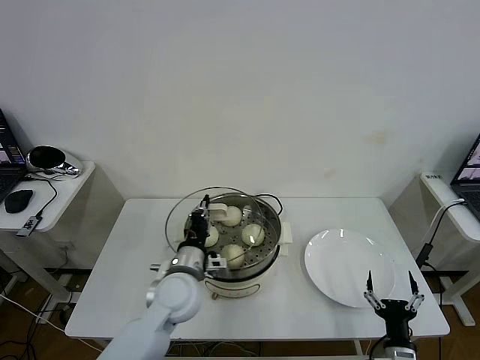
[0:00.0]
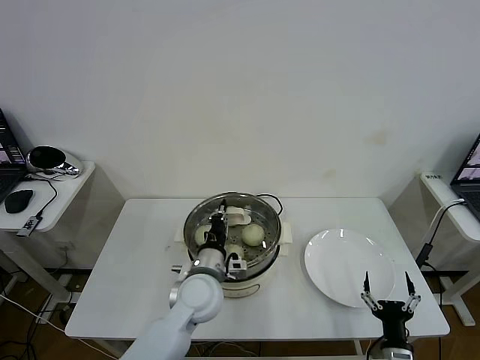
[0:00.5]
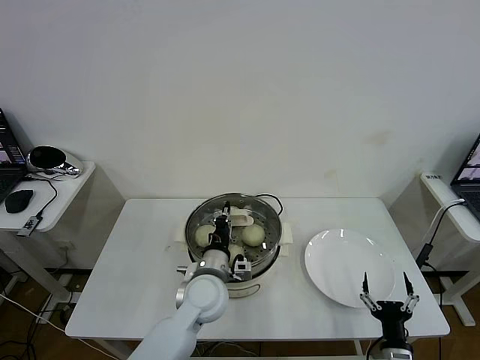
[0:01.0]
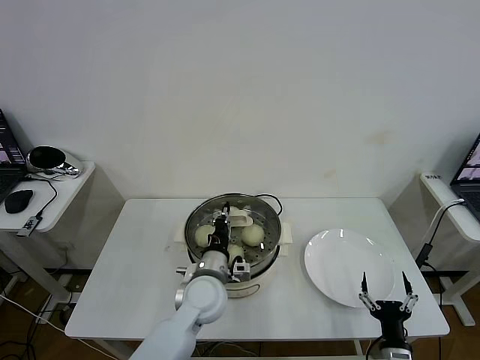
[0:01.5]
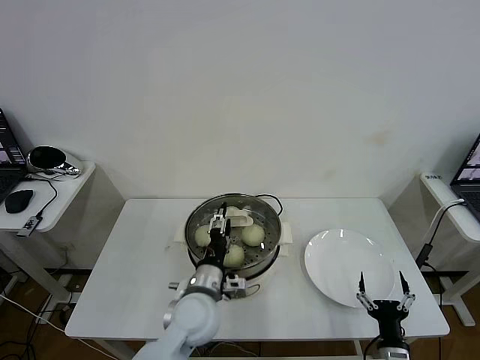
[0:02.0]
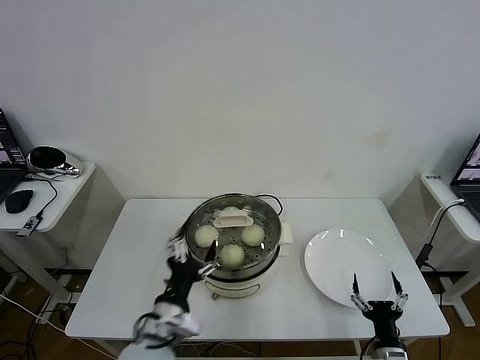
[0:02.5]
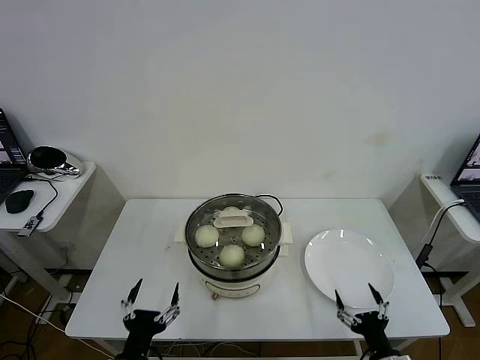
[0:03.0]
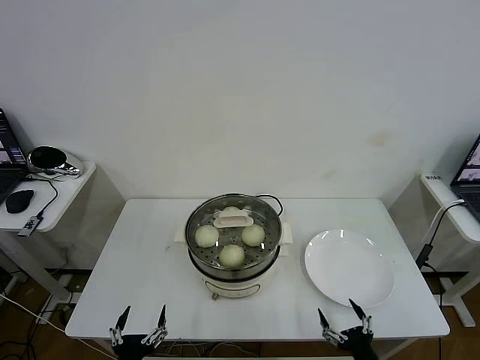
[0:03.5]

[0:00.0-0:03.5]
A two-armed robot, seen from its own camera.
Task of the whole recording: take steamed baozi put them in steamer then cover it.
Step, 0:00.0 to 0:02.0: Place the pot lid on the steamer with left gripper.
0:00.0 to 0:02.0: The left gripper shifts by roughly 5 cm, and opens its fingers.
0:02.0 to 0:03.5: The left gripper moves backward and to the left, roughly 25 cm.

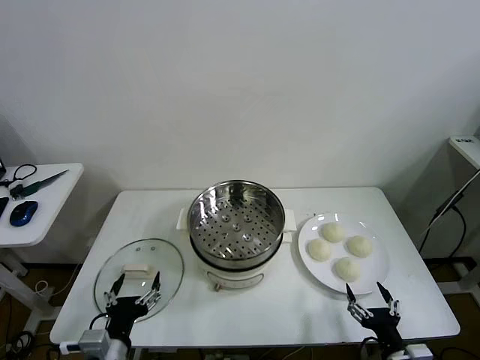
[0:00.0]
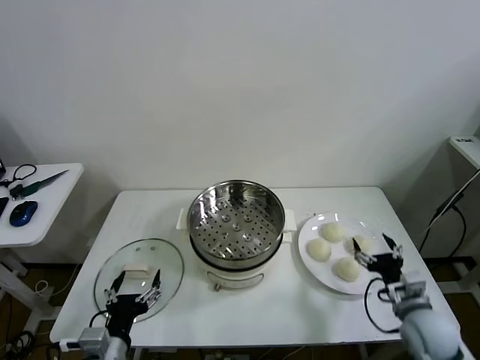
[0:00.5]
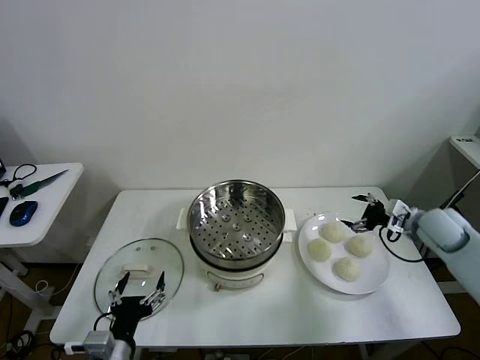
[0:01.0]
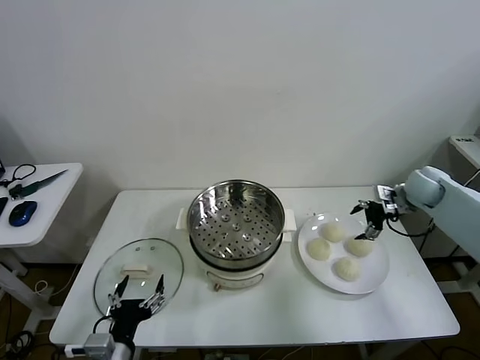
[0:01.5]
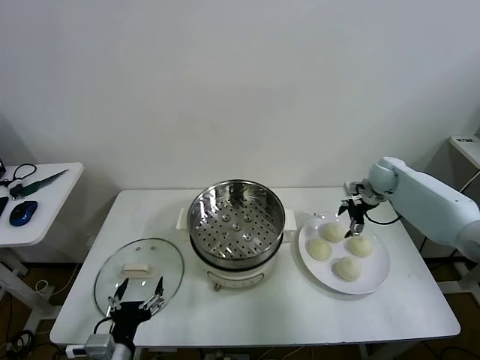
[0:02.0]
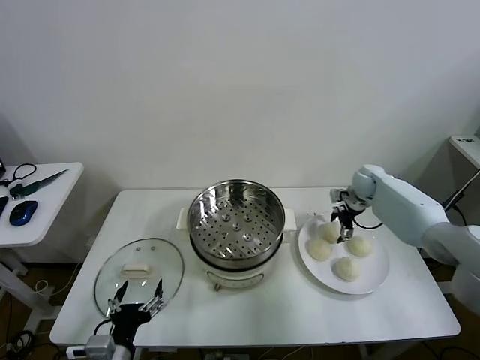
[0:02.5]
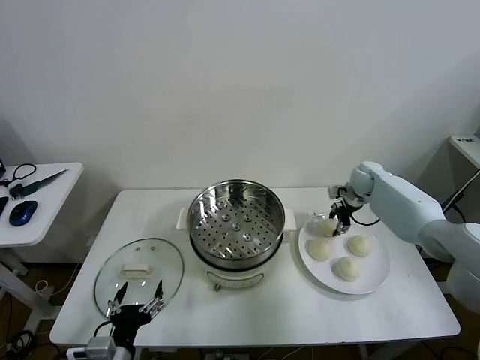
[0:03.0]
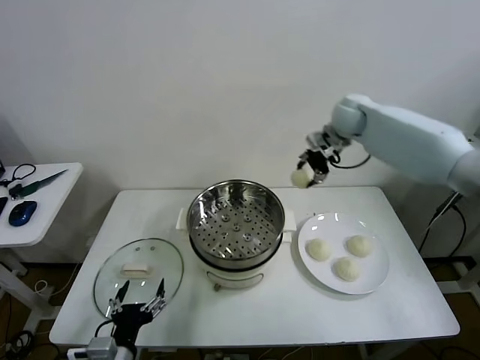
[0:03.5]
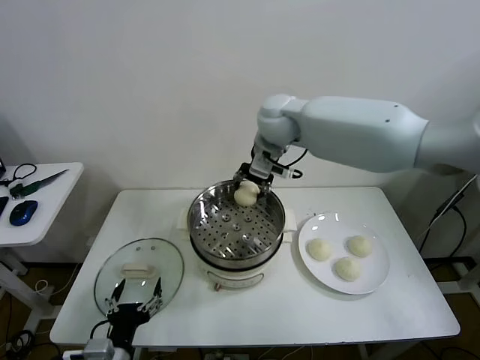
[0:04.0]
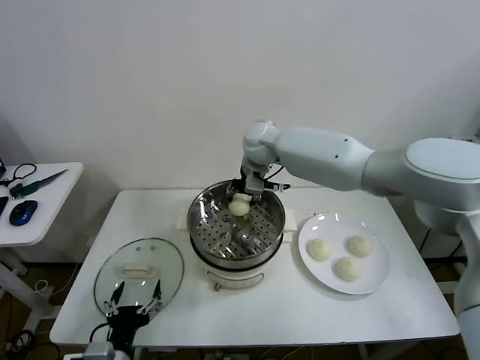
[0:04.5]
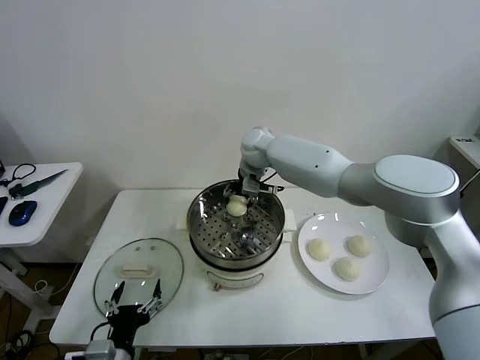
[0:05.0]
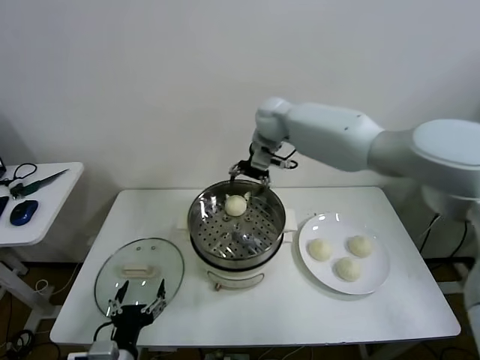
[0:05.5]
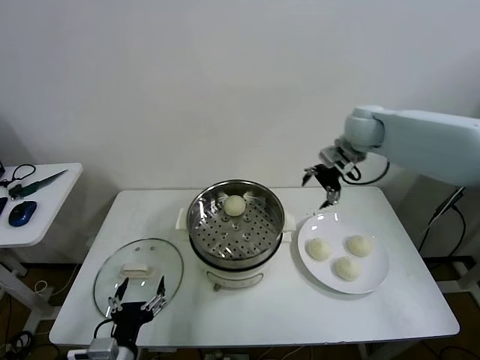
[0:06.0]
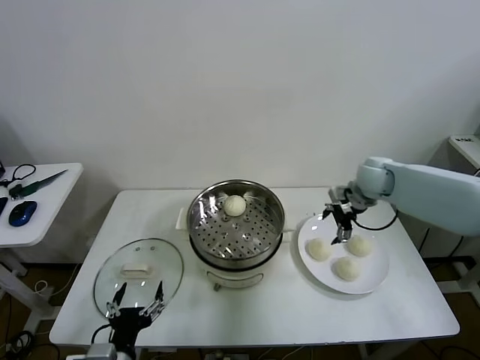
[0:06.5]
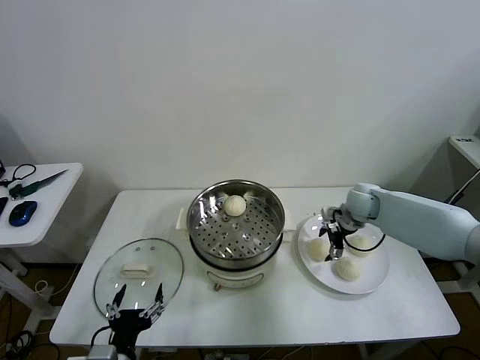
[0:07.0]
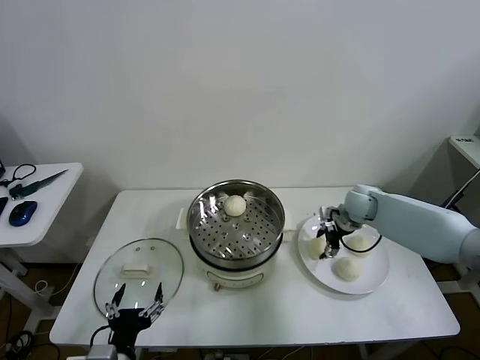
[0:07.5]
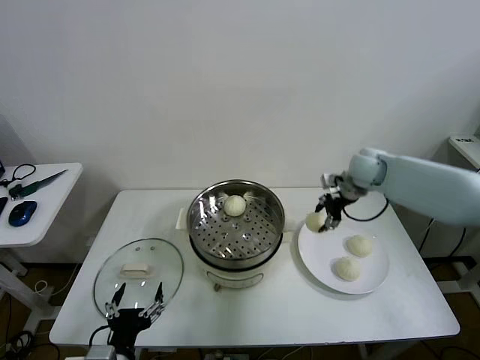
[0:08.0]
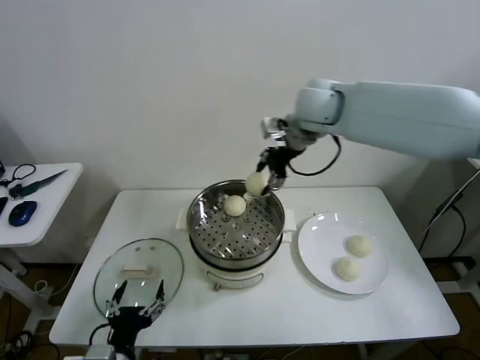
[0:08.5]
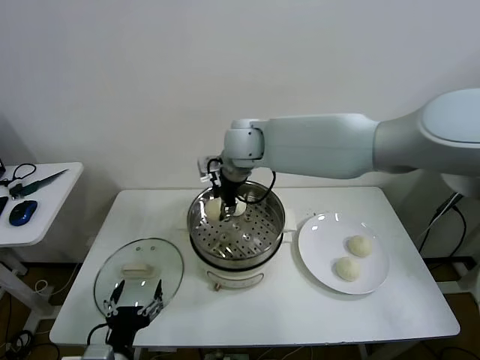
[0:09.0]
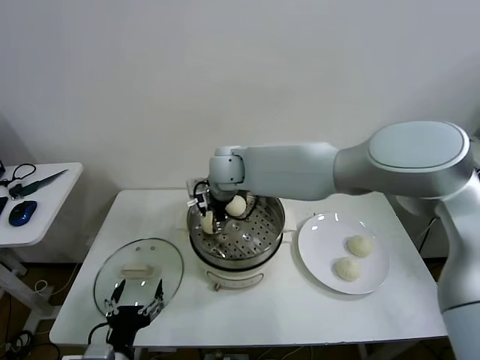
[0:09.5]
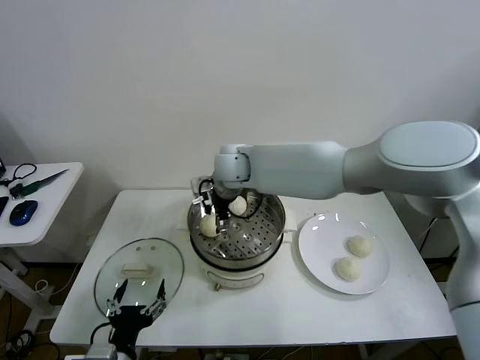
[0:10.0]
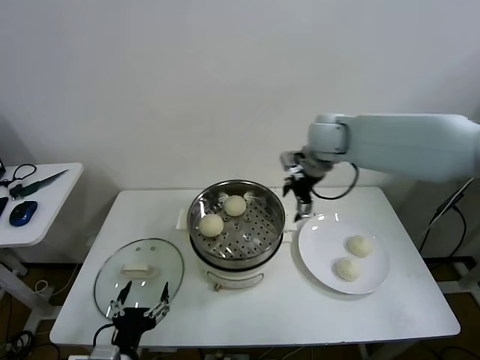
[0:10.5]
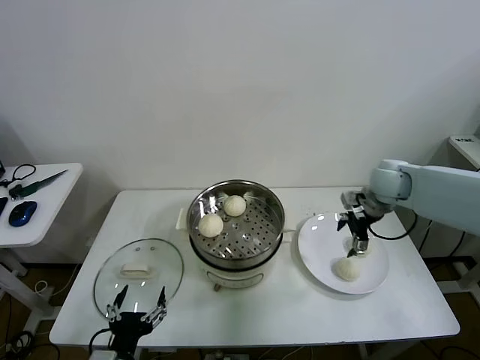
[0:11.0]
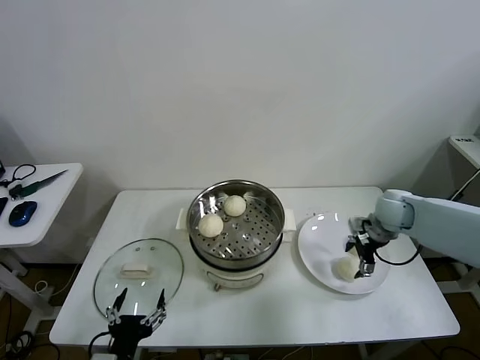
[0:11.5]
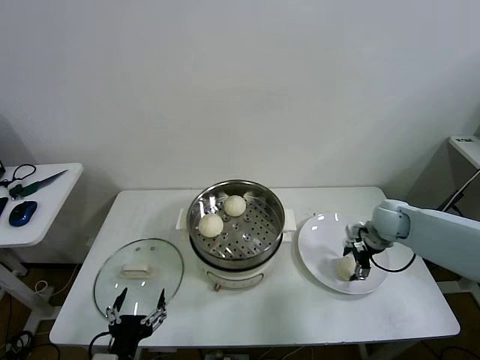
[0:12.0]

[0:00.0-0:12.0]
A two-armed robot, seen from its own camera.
Task of the whole recording: take steamed baozi put them in steamer then cover it.
Step, 0:00.0 to 0:02.5: Grasp the baozi in the plate with right gripper.
Step, 0:03.0 to 0:05.0: Place the baozi on the steamer with right gripper.
Step, 0:05.5 to 0:07.5: Grasp the baozi in the plate with right gripper.
Step, 0:08.0 to 0:09.5: Place the baozi on the steamer with right gripper.
0:02.0 to 0:04.0: The right gripper goes some 35 cm to the left and upward, and closes its fingers.
0:04.0 to 0:06.0: The right gripper travels to the right by approximately 25 cm, and opens up.
0:06.0 to 0:08.0: The right gripper reaches some 20 cm downward, then returns, and closes up.
0:08.0 to 0:10.0: The right gripper is displaced to the left by some 30 cm, and opens.
0:10.0 to 0:12.0: The right gripper goes about 40 cm to the right and downward.

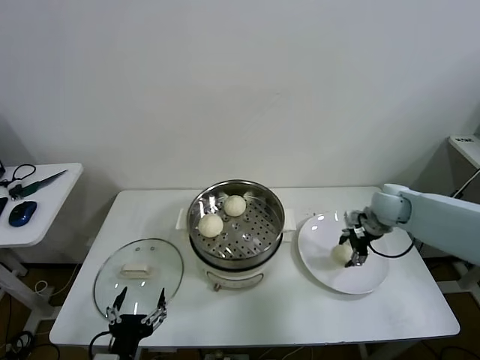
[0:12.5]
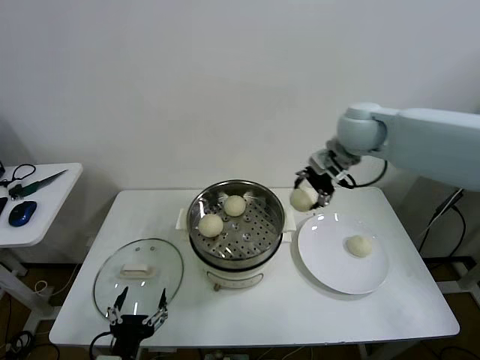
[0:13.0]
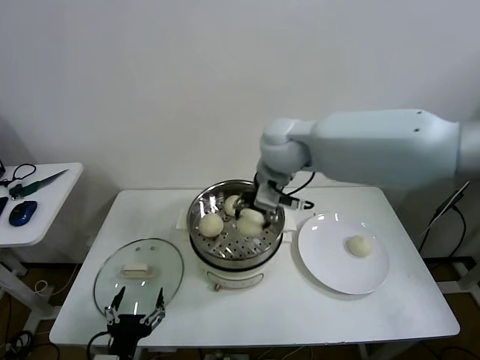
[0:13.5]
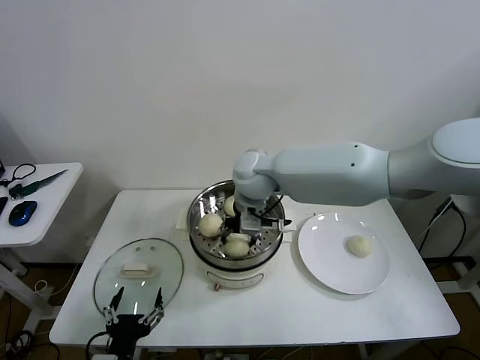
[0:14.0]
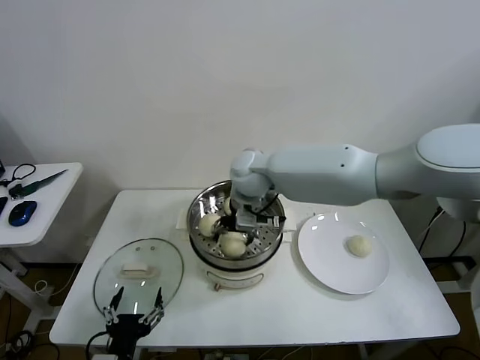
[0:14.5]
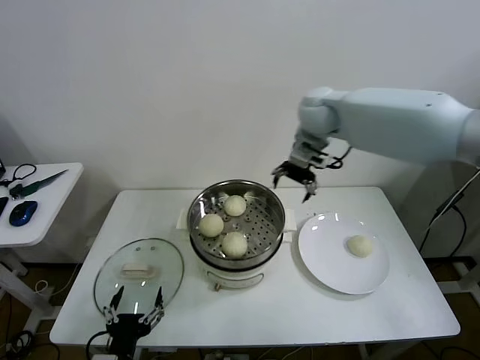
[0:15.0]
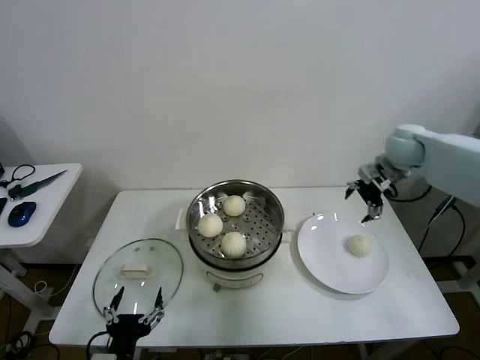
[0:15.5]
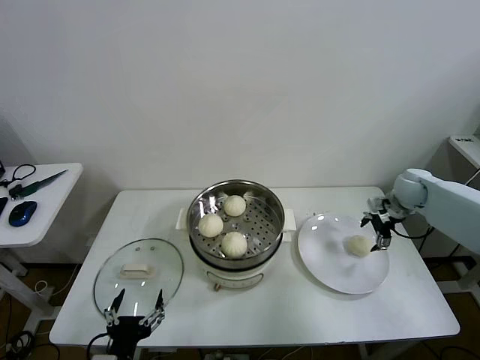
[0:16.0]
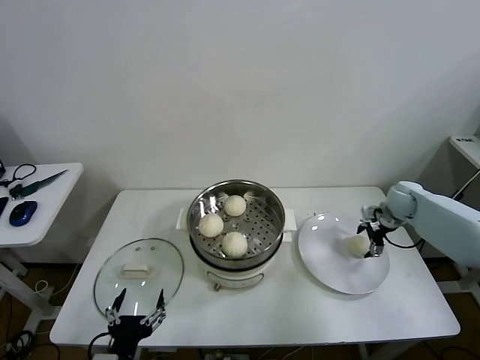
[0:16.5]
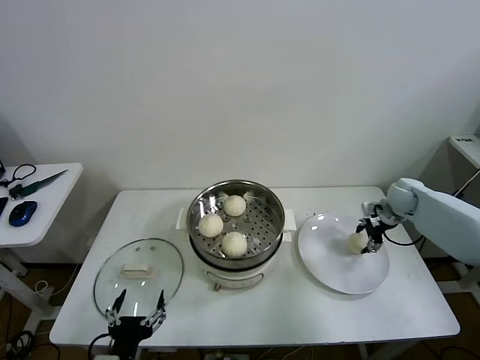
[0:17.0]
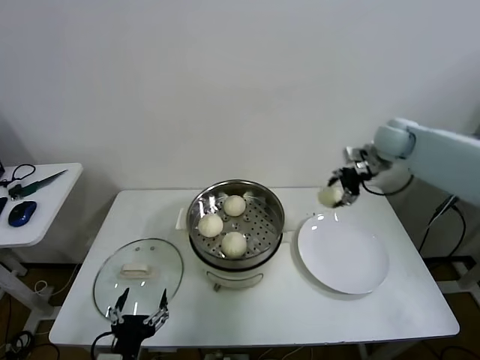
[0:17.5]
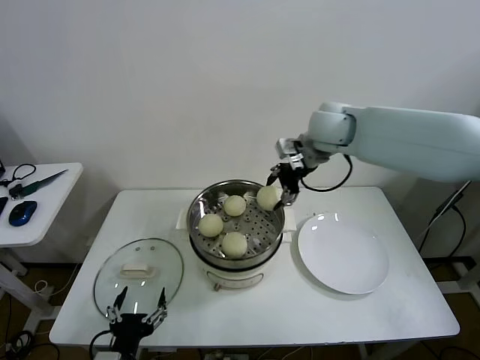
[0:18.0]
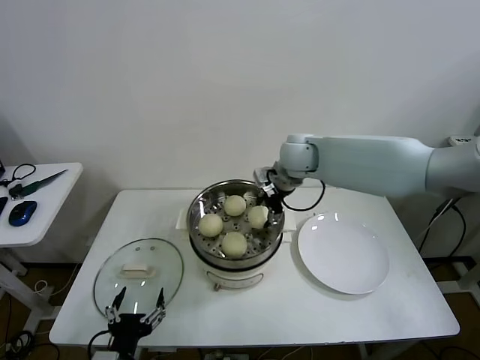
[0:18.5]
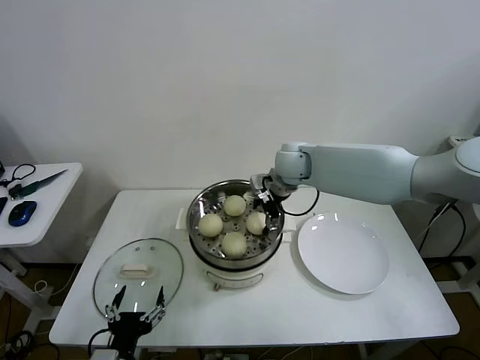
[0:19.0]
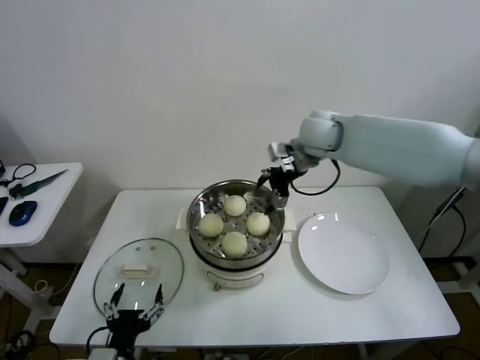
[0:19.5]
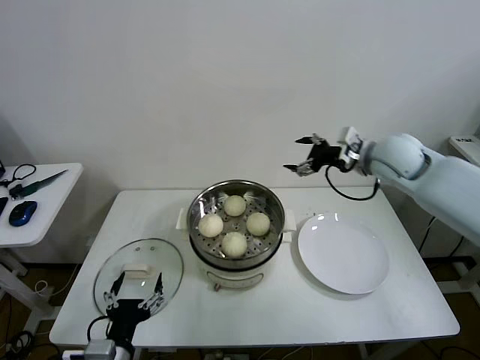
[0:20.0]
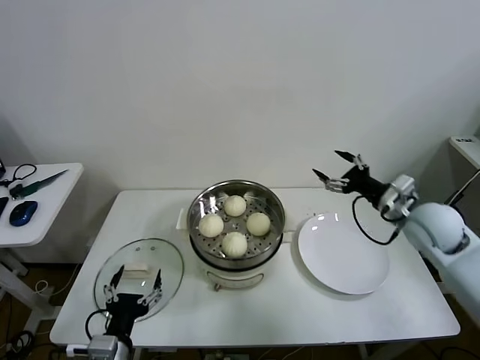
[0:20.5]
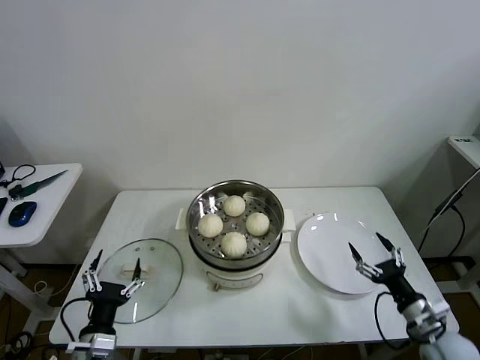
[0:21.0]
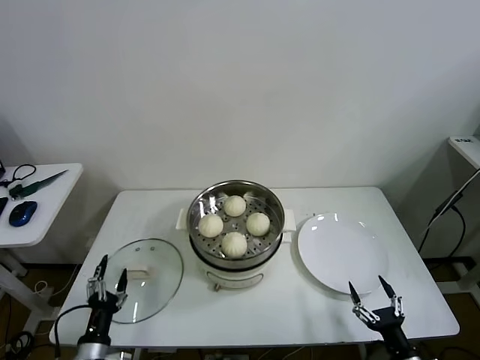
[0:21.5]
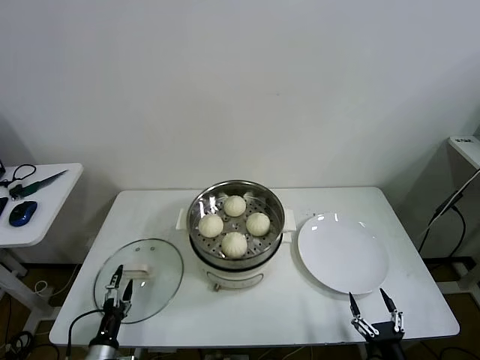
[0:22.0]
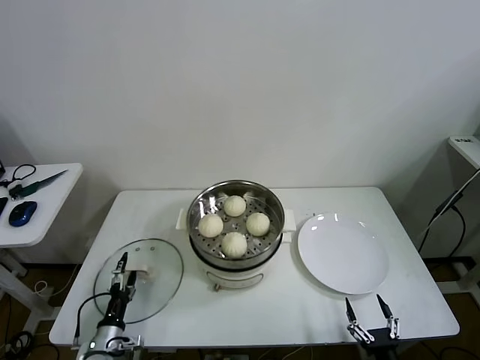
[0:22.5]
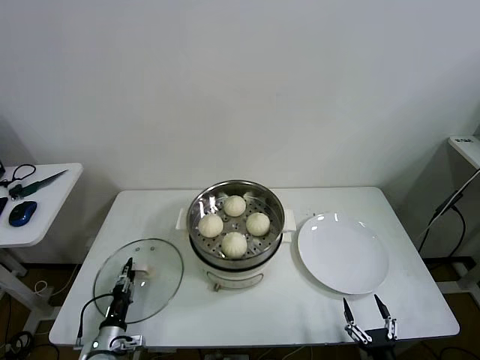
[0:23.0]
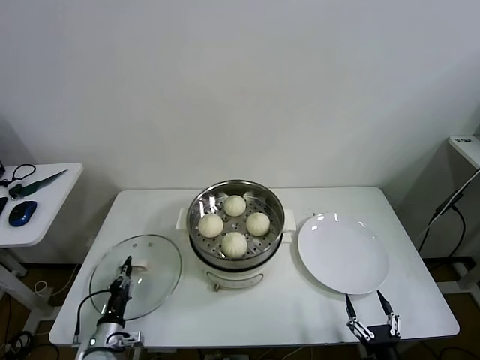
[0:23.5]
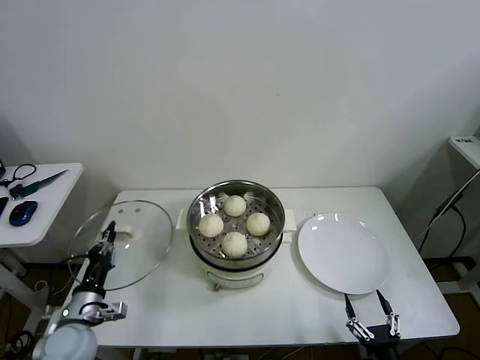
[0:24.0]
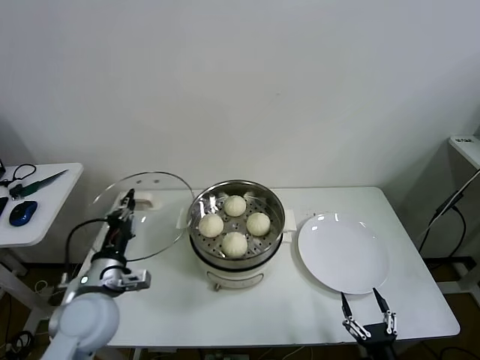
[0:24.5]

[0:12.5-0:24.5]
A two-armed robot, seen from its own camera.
Task of the whole recording: take steamed baozi put them in steamer then cover it.
Step, 0:12.5 to 0:14.5: Place the baozi on the steamer with right gripper.
Step, 0:15.0 to 0:16.5: Grasp the baozi in the plate with right gripper.
Step, 0:17.0 to 0:19.0: Place the baozi on the steamer with right gripper.
Step, 0:19.5 to 0:23.0: Grasp the pot lid with left gripper.
0:12.5 to 0:14.5: The right gripper moves to the left, some 35 cm, and opens up.
0:14.5 to 0:16.5: The right gripper shifts some 40 cm to the right.
0:16.5 to 0:18.5: The right gripper goes some 35 cm to the left and upward, and closes up.
0:18.5 to 0:20.5: The right gripper shifts about 30 cm to the right and backward, and opens.
0:20.5 to 0:22.5: The left gripper moves downward and to the left, approximately 20 cm, while the right gripper is displaced backward and downward by approximately 40 cm.
0:22.5 to 0:24.5: The left gripper goes some 25 cm upward, and closes its fingers.
